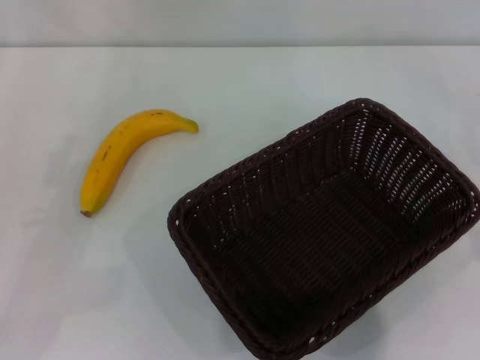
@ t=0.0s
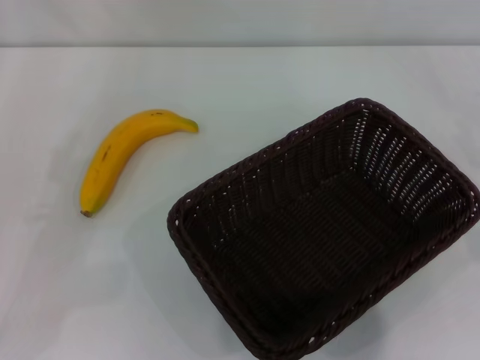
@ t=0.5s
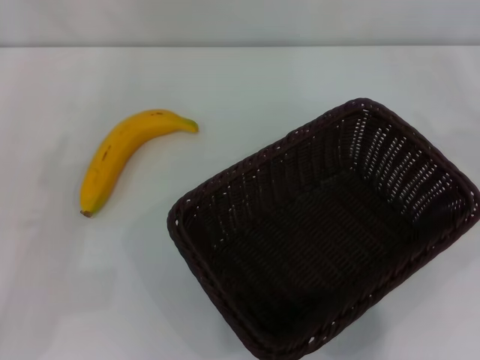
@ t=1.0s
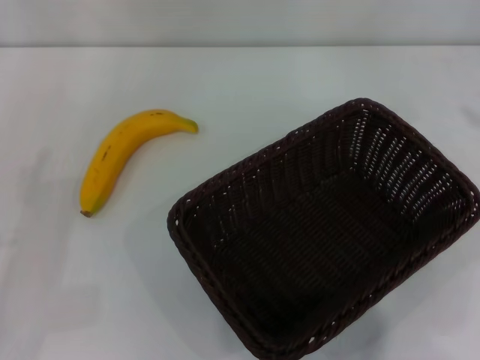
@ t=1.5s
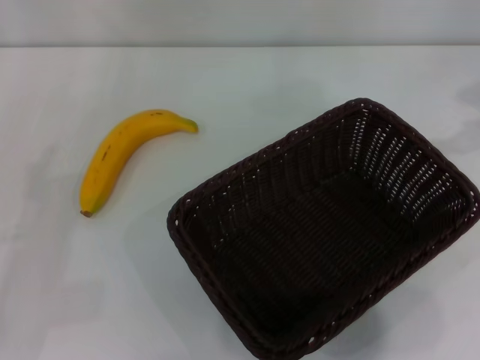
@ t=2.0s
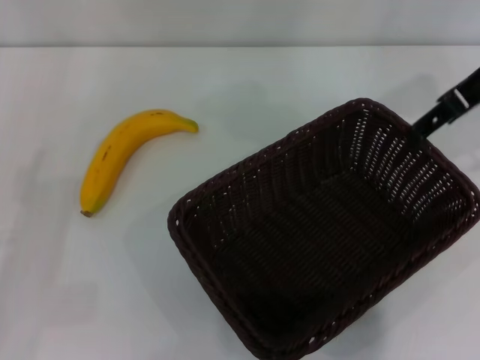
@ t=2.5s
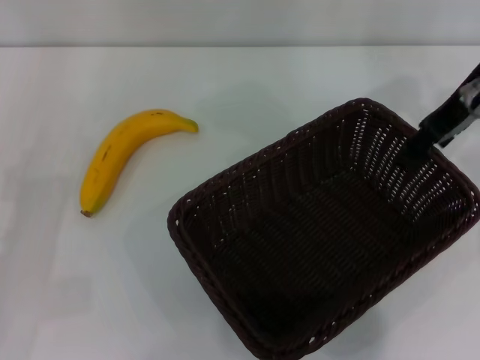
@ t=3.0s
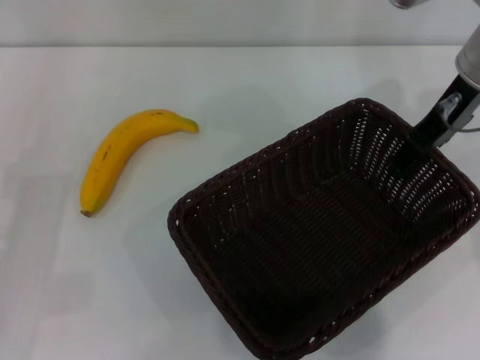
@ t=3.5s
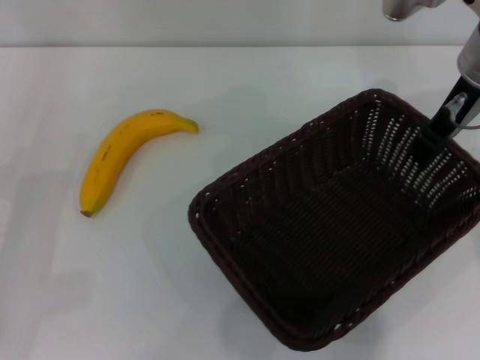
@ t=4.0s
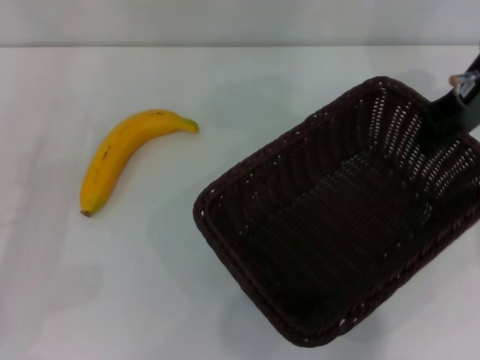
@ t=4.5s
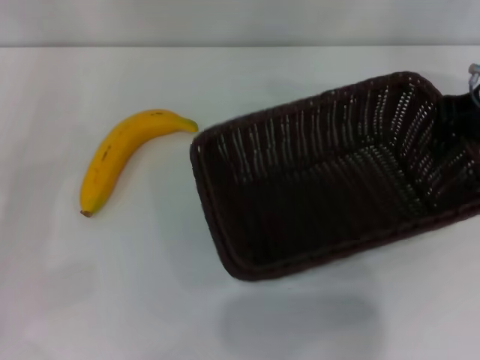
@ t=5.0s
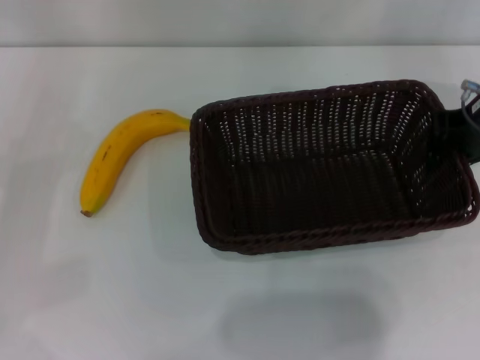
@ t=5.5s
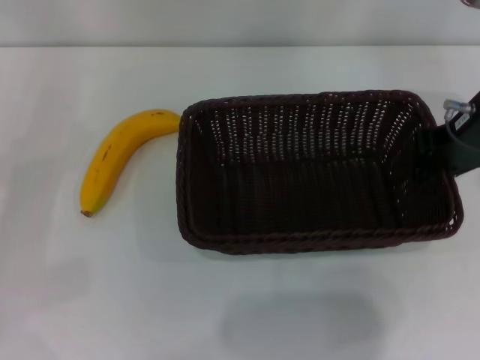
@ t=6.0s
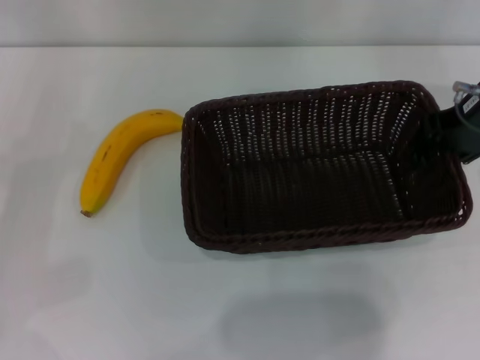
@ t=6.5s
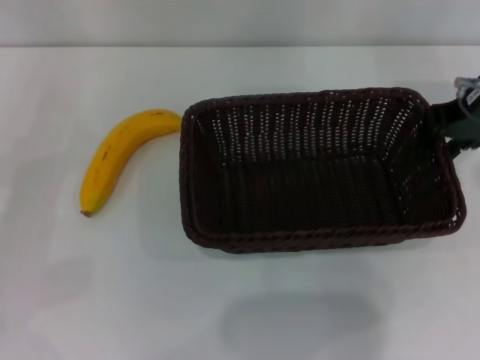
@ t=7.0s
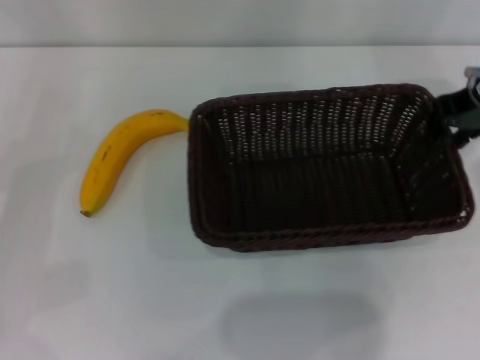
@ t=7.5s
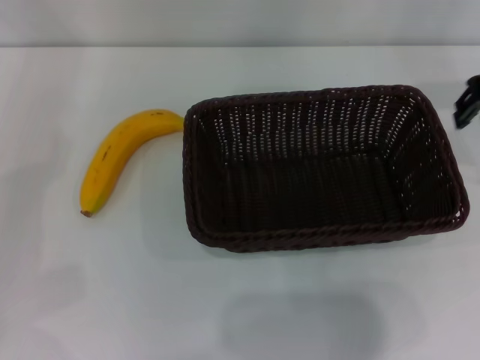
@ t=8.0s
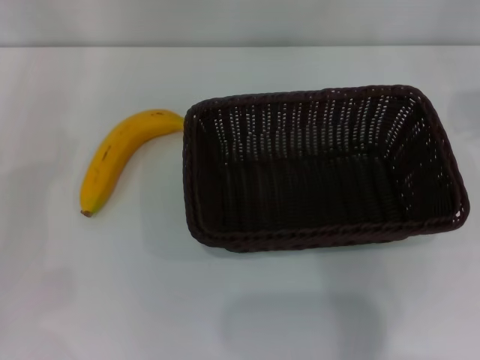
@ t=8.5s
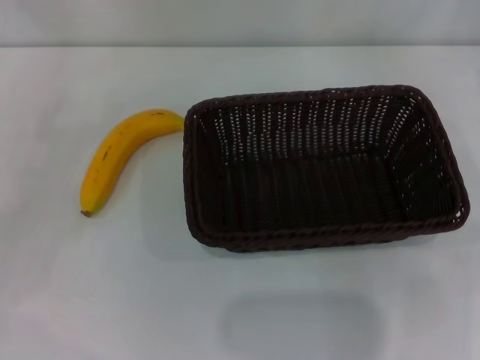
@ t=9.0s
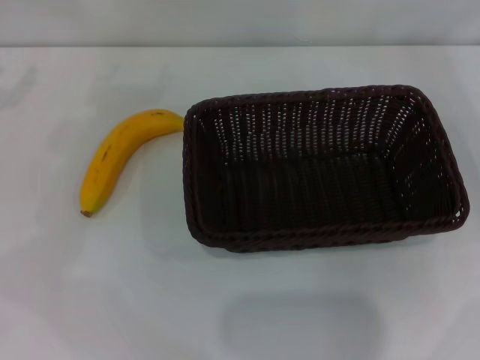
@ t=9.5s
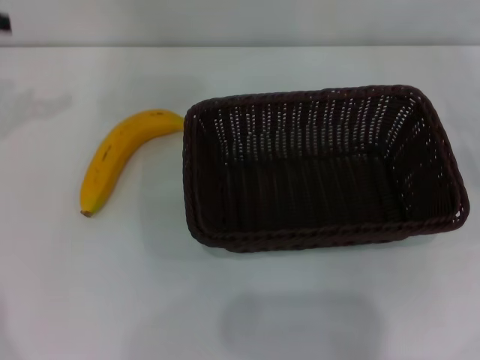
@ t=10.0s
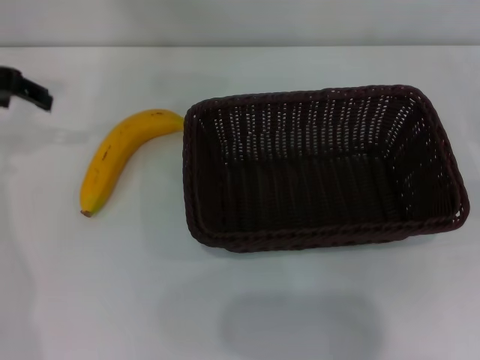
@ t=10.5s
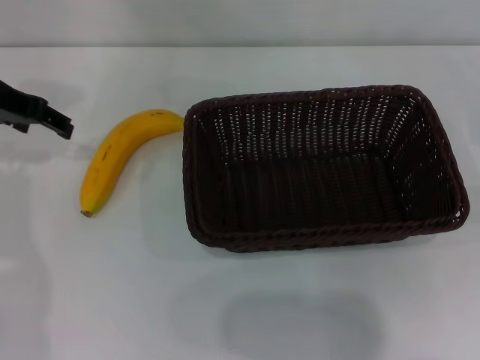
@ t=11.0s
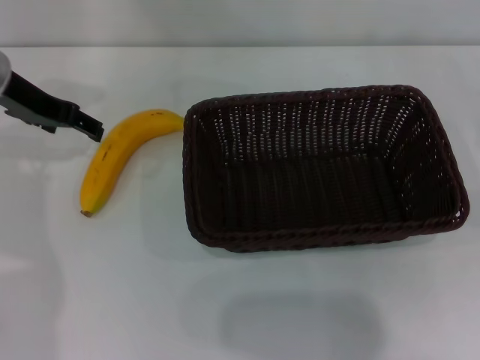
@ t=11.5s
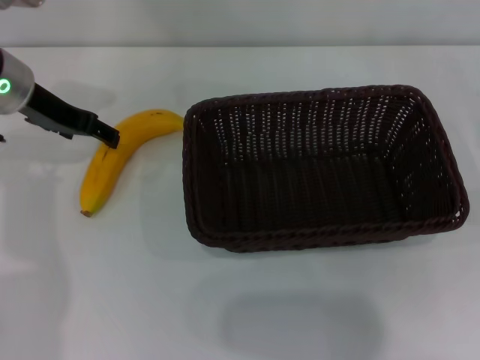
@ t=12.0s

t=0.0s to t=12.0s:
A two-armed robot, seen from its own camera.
Step, t=0.0s to t=5.0s: Pick up the dark basket with the right gripper.
Step, t=5.5s to t=7.5s: Place the dark basket in the center of view with the right gripper.
t=2.0s to t=4.0s: The right gripper travels to the left and downward by approximately 15 cm, and closes.
t=4.0s to t=6.0s: The left gripper shifts by about 5 cm.
t=6.0s to t=8.0s: The right gripper goes about 5 cm upward.
t=8.0s to t=10.0s: The right gripper goes about 25 cm to the right and downward.
t=10.0s to t=12.0s: The left gripper heads to the right and downward, covering some 15 cm.

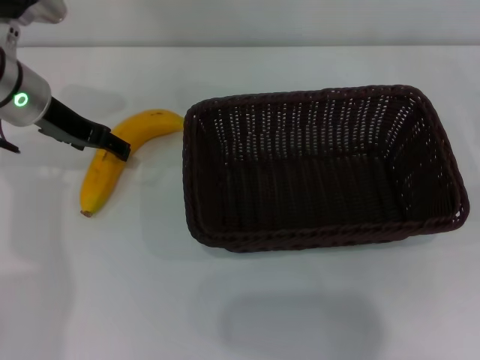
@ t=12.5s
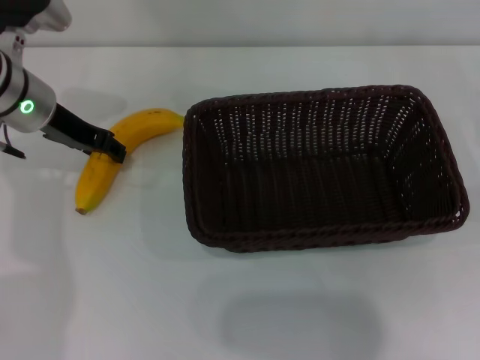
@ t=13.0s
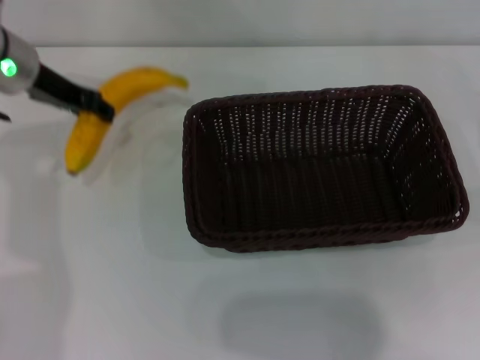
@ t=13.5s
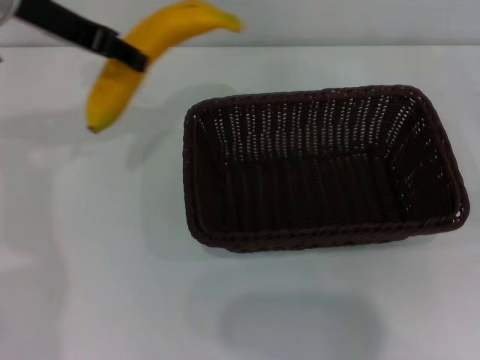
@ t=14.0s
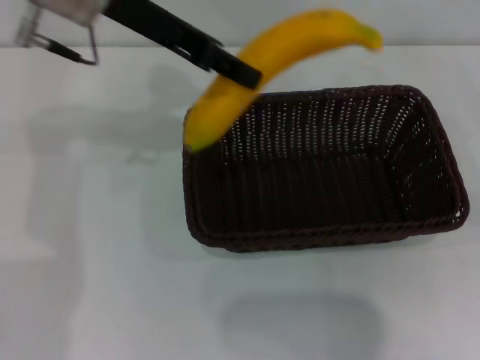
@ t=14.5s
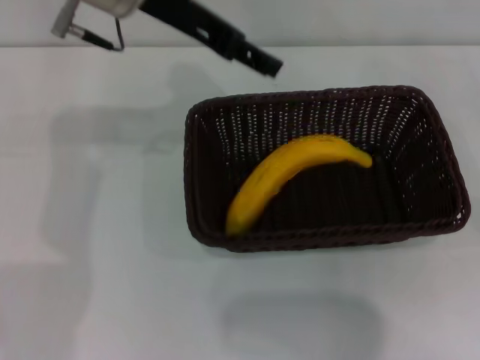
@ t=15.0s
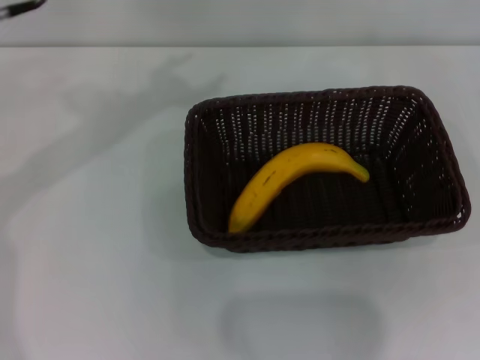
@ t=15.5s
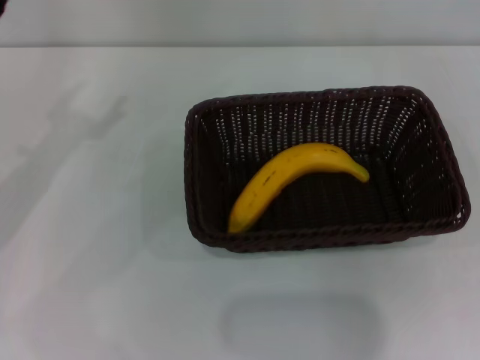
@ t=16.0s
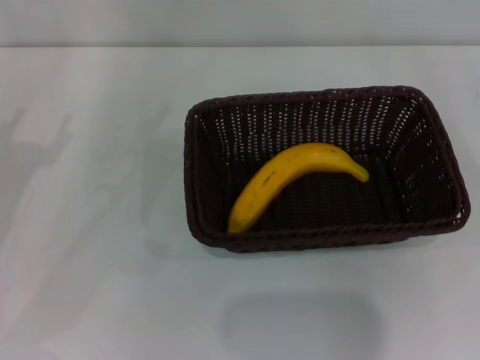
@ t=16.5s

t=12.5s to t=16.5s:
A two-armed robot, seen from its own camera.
Step, t=14.0s to t=15.0s: Place the banana into the dark basket with the left gripper.
t=12.5s to t=14.5s: The left gripper is displaced upward and to the right by roughly 15 cm, and closes up.
t=14.5s to t=16.5s: The left gripper heads to the left, downward and backward, covering approximately 25 cm, and opens its fingers. Meanwhile the right gripper shifts about 5 cm backward, and opens its fingers.
